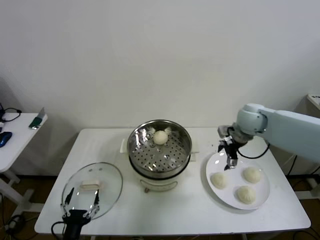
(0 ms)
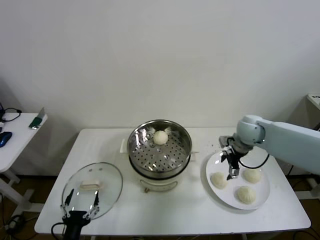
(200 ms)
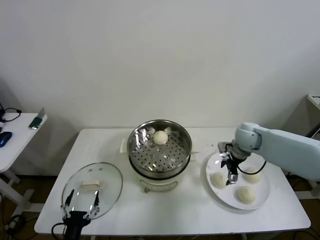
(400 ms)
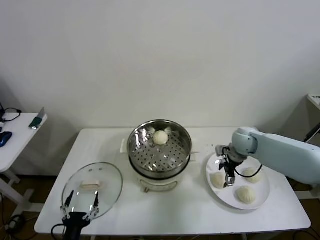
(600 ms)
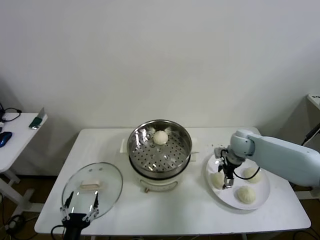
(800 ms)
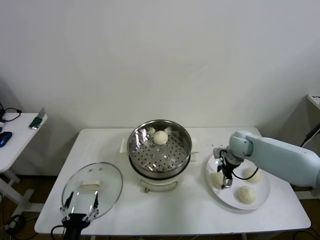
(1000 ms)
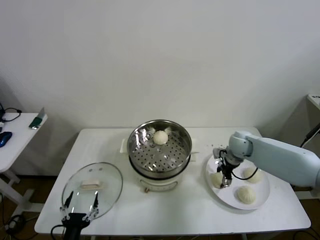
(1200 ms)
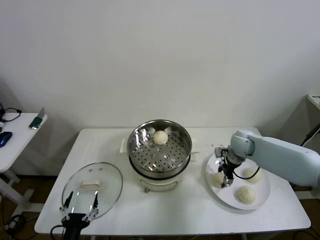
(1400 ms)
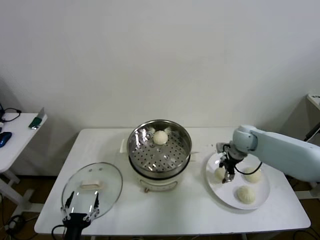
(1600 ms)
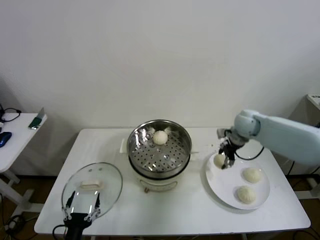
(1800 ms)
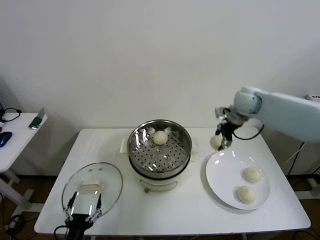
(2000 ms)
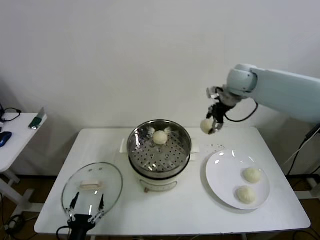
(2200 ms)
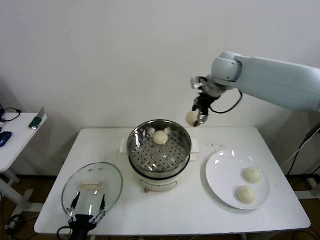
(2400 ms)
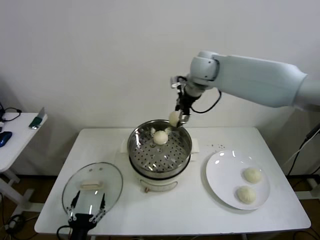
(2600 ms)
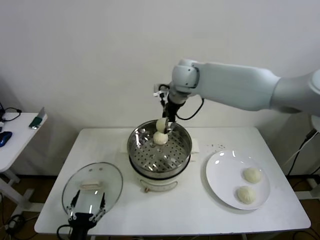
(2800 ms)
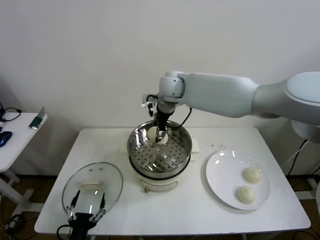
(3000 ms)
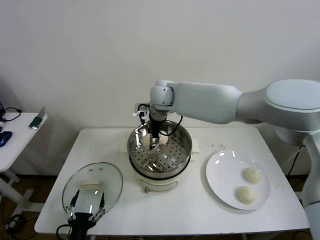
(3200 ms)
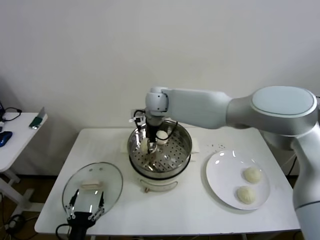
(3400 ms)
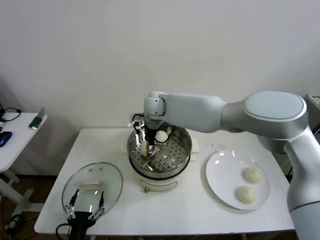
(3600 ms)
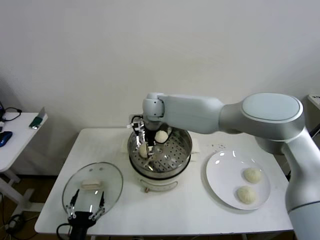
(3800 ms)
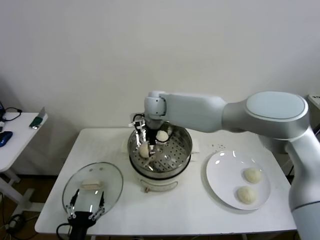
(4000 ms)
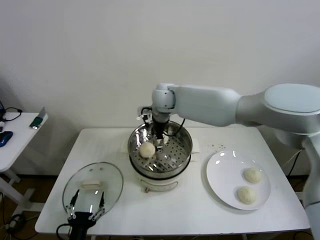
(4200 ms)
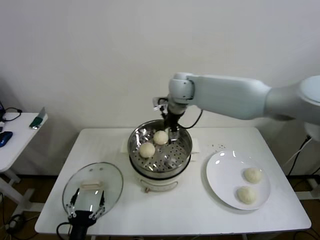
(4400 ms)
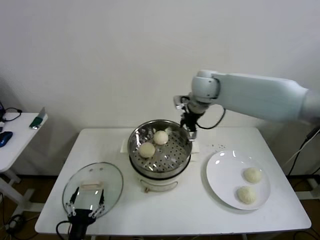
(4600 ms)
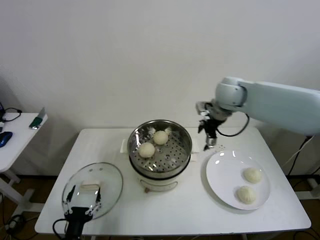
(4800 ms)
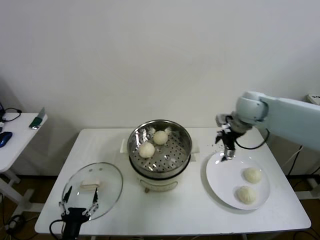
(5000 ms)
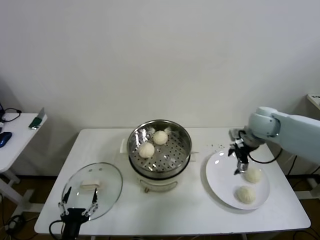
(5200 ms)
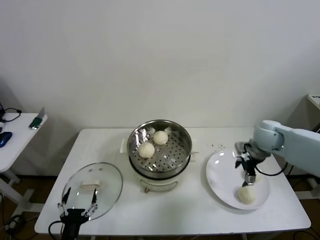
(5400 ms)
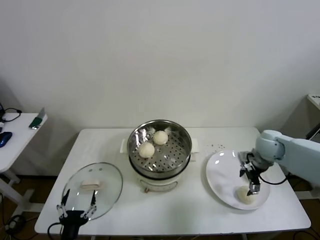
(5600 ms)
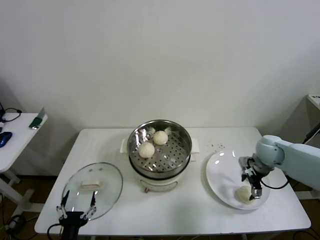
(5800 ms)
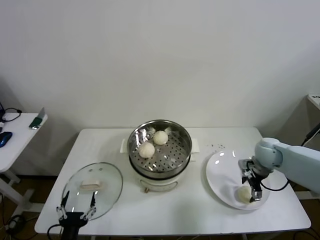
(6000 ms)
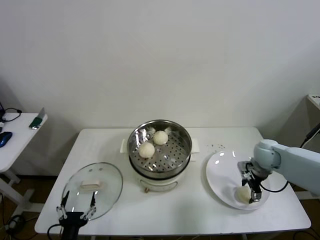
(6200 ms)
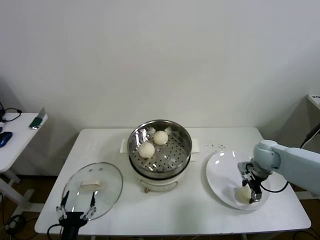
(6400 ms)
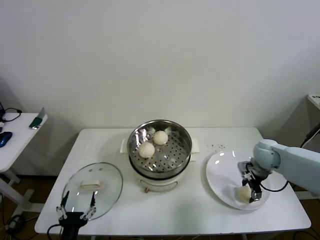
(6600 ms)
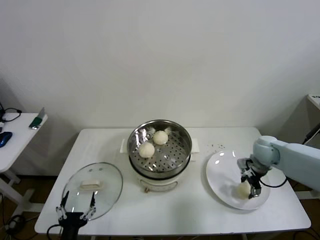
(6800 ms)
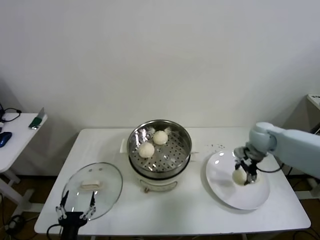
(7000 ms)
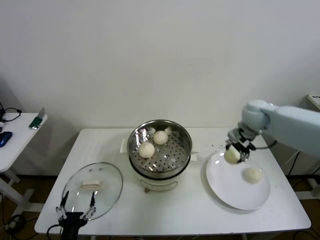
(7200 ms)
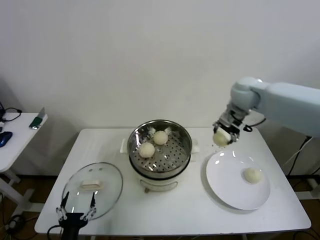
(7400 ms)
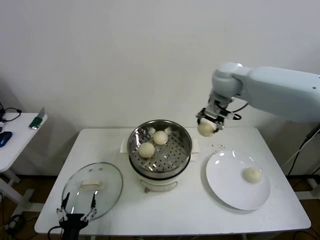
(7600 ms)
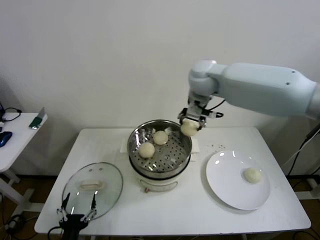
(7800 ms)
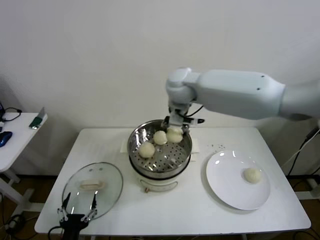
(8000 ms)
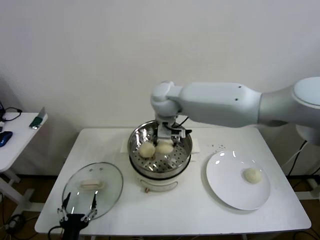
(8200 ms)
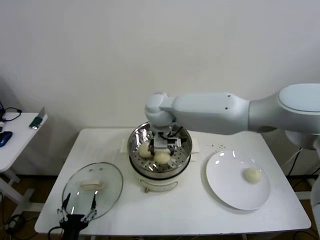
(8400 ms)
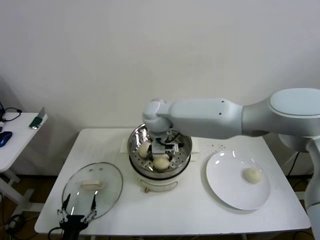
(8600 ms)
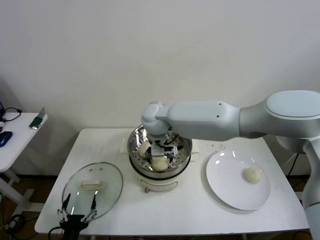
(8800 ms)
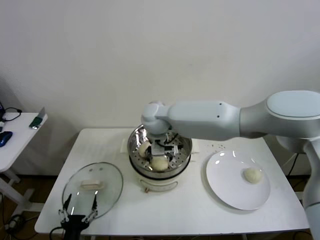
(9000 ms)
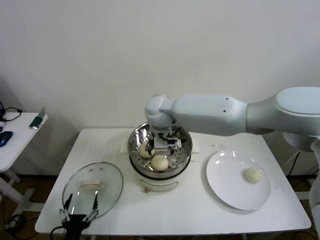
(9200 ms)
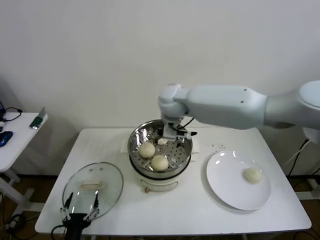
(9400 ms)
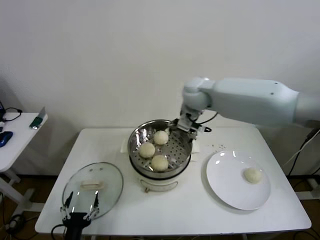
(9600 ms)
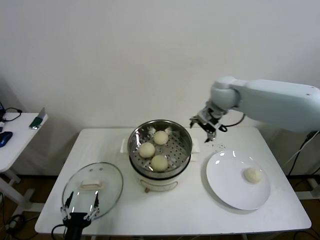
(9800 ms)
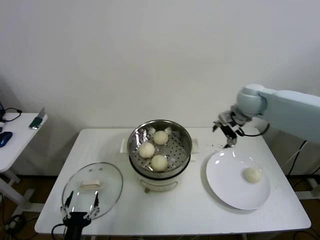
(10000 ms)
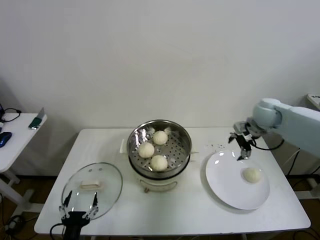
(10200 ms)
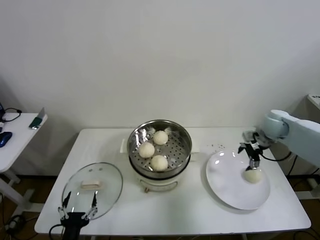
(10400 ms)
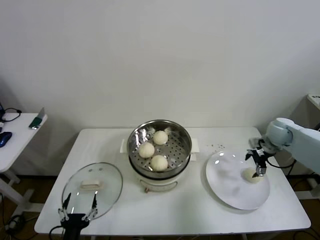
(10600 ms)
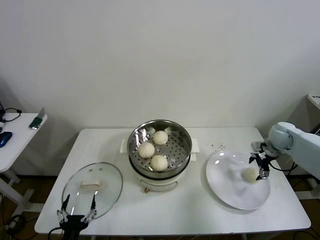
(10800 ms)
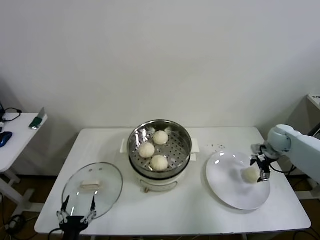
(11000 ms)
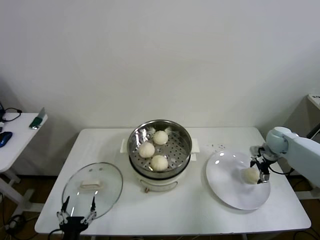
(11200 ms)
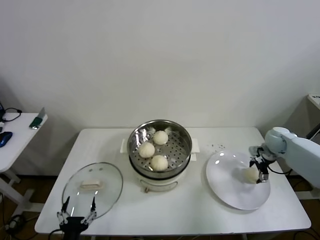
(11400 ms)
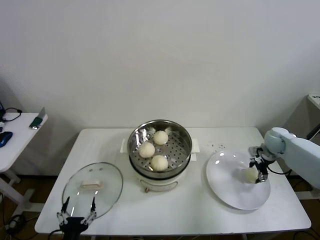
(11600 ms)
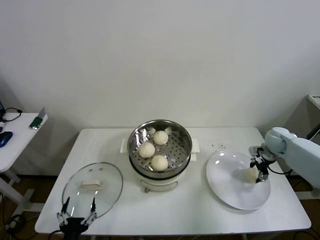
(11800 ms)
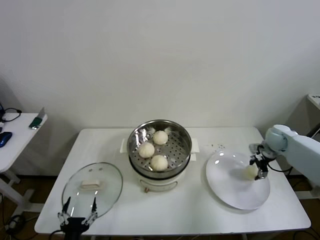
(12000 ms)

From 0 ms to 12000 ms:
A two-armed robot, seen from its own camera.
Step, from 0 ms to 1600 ms: Grasp the baozi in the plate with right gripper.
Step, from 1800 ms to 4200 ms: Place the baozi on the steamer with right gripper.
Step, from 4400 ms to 6400 ms: Grasp the baozi in the plate with right gripper.
Step, from 6600 ms to 9200 ms: Place the baozi on the steamer with right gripper.
Step, from 9400 ms to 11800 ms: Grasp the baozi in the plate with right gripper.
From 0 ms to 1600 ms: The right gripper shifts roughly 5 cm downward, and closes its fingers.
From 1600 ms to 3000 ms: The right gripper goes some 35 cm to the left and upward.
From 3000 ms to 4400 ms: The right gripper is displaced to the right by about 5 cm, and opens.
From 4400 ms to 6000 ms: The right gripper heads to the right and downward, covering some 35 cm.
From 6000 ms to 7600 ms: The right gripper shifts some 35 cm upward and to the left, and closes.
From 7600 ms to 9000 ms: The right gripper shifts about 20 cm to the left and downward, and opens.
From 9000 ms to 10400 ms: The right gripper heads to the right, covering some 40 cm.
From 10400 ms to 12000 ms: The right gripper heads downward, covering some 5 cm, and closes up.

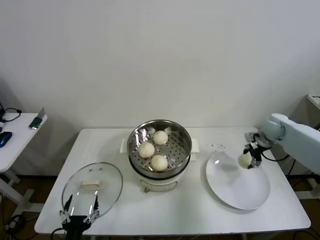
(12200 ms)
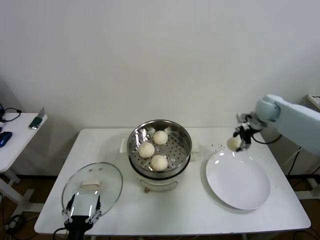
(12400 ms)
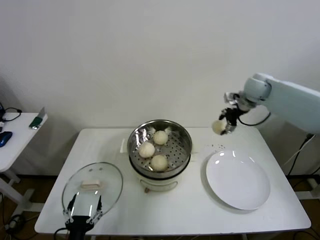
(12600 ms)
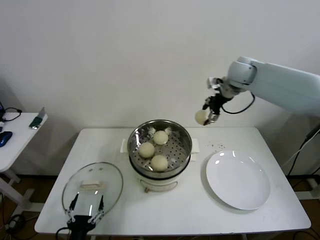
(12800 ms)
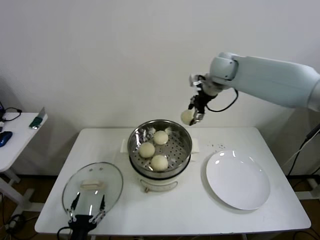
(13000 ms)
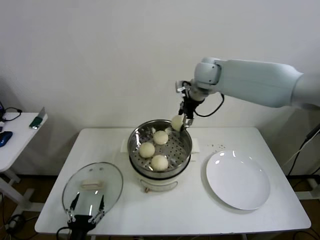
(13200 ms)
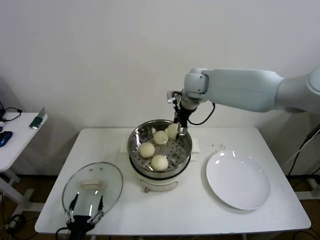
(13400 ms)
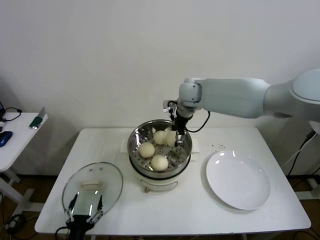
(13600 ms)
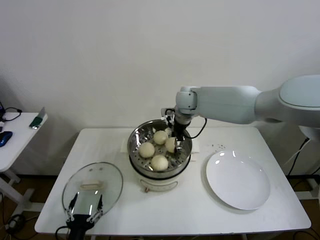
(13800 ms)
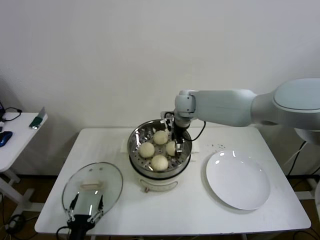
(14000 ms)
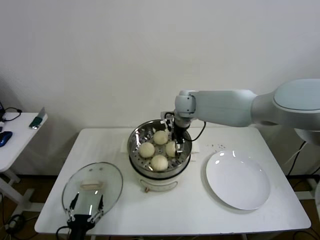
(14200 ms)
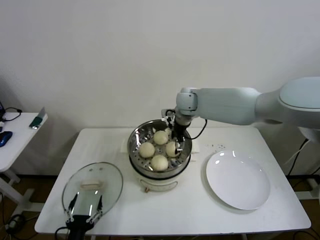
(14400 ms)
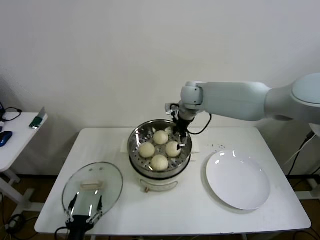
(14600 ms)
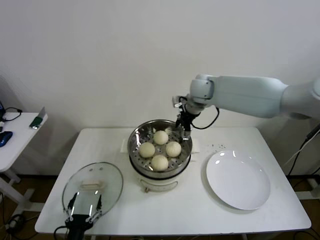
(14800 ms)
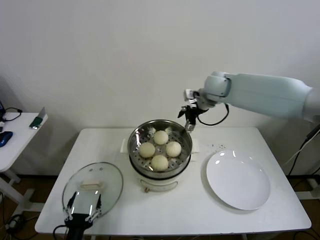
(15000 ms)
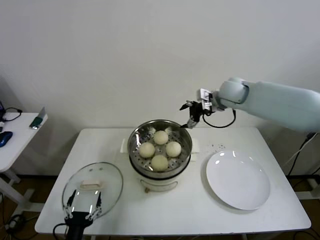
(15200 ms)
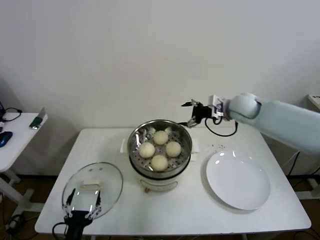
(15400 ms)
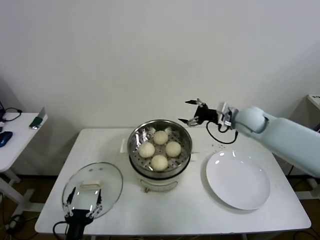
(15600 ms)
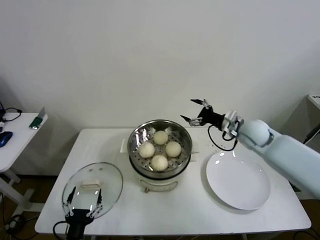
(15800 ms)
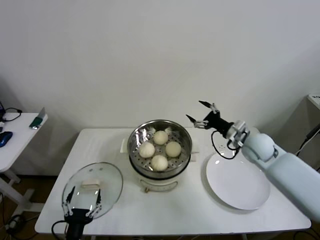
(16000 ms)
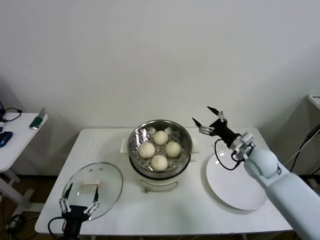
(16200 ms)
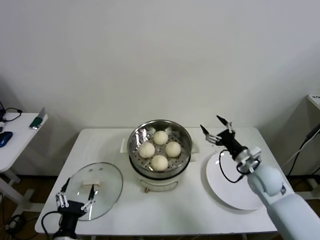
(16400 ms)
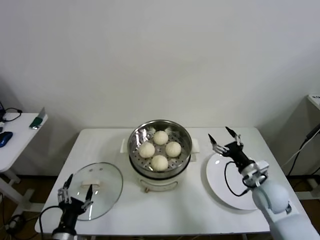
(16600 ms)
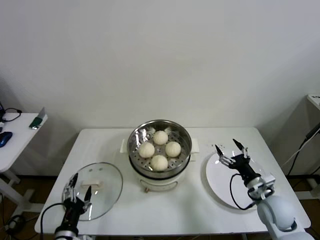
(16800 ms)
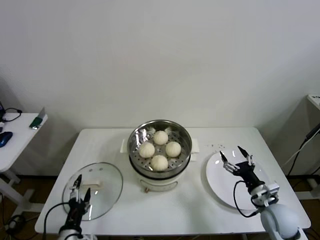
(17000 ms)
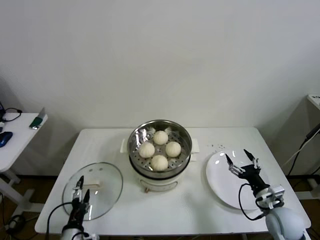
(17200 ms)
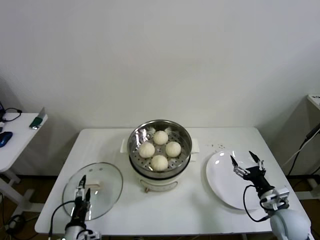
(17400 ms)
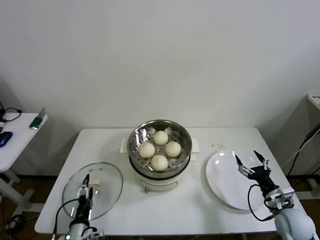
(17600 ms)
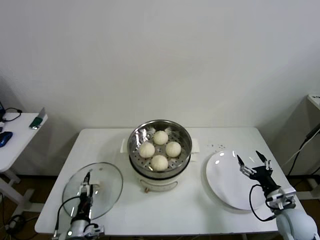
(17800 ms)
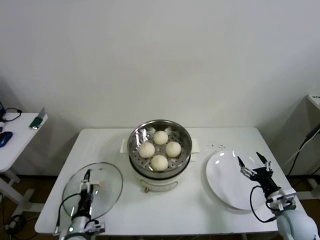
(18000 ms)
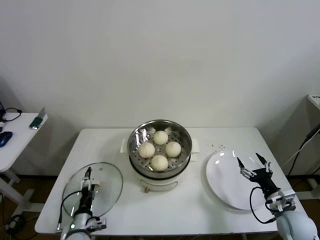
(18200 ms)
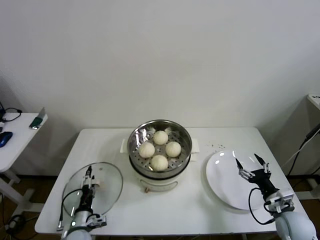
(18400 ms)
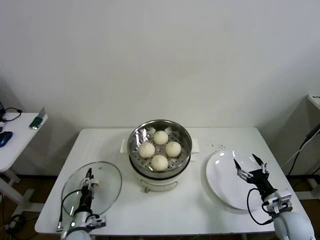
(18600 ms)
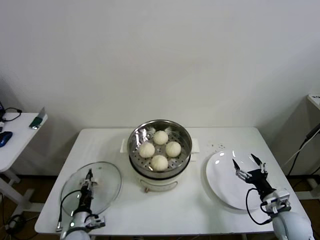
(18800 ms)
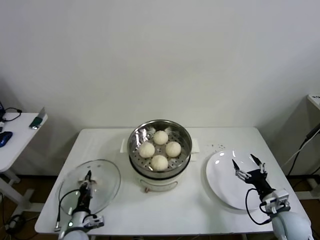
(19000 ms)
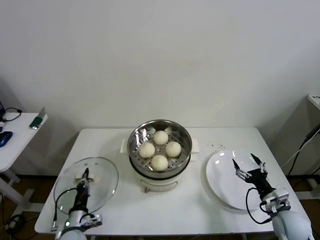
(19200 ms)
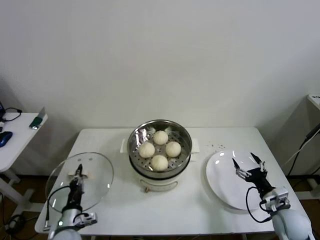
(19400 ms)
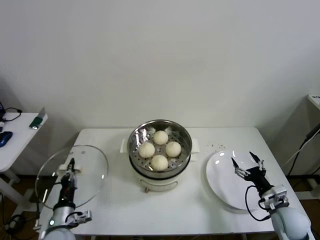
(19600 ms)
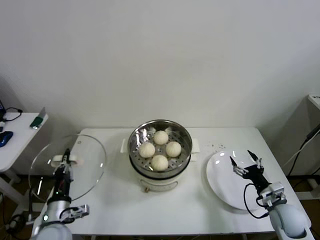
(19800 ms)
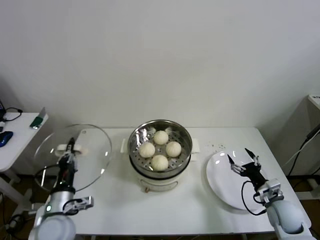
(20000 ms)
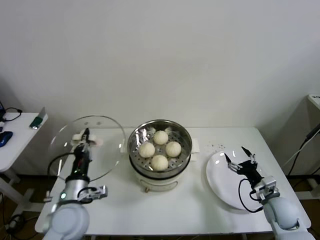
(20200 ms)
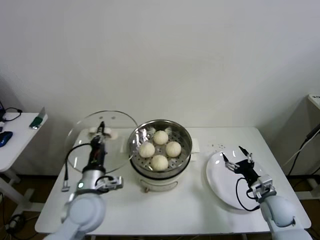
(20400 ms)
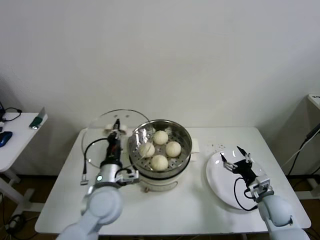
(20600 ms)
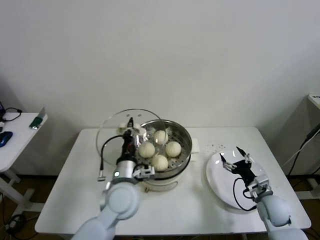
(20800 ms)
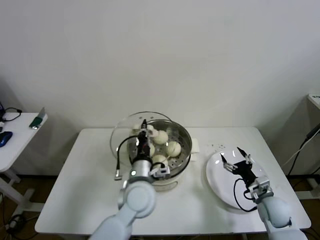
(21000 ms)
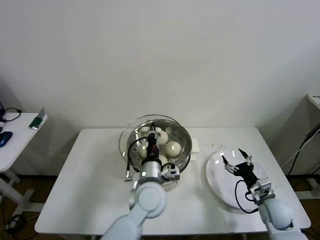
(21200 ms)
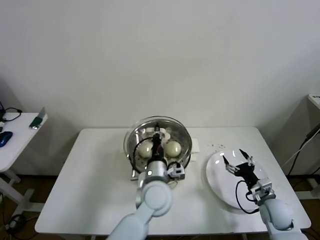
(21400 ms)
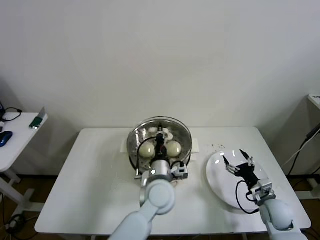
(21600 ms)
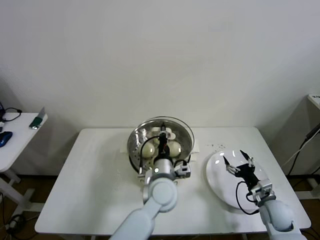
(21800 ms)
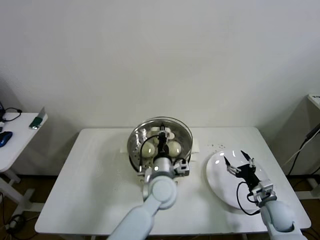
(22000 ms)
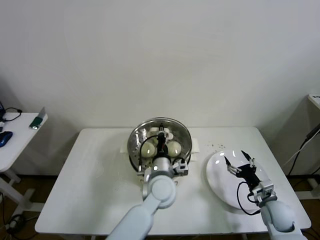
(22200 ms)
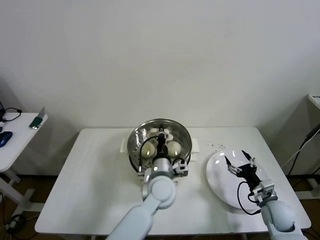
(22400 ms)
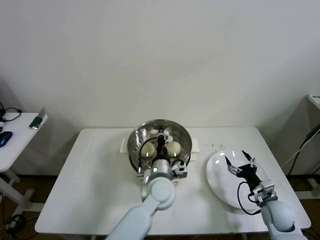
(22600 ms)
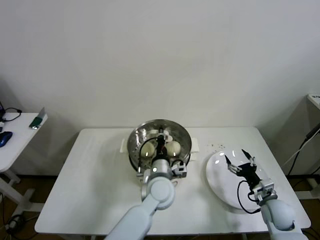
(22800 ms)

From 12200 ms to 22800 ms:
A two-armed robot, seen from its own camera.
Step, from 12200 ms to 14600 ms: Place the baozi on the steamer with right gripper.
Step, from 14800 ms to 19000 ms: Grasp the pot lid with left gripper.
From 12200 ms to 13800 ms: The right gripper heads to the left, covering about 35 cm.
From 13800 ms to 15200 ms: The right gripper moves to the right, approximately 15 cm, and opens.
From 15200 ms to 16800 ms: The right gripper travels backward and downward by about 35 cm; the left gripper shifts by roughly 5 cm.
From 16800 ms to 18200 ms: The right gripper is displaced to the right by roughly 5 cm. The left gripper travels downward and forward by approximately 15 cm.
From 18200 ms to 19800 ms: The left gripper goes about 15 cm upward, and closes up.
From 19800 ms to 21200 ms: The left gripper shifts about 25 cm to the right.
From 21200 ms to 22800 ms: The left gripper moves some 5 cm.
